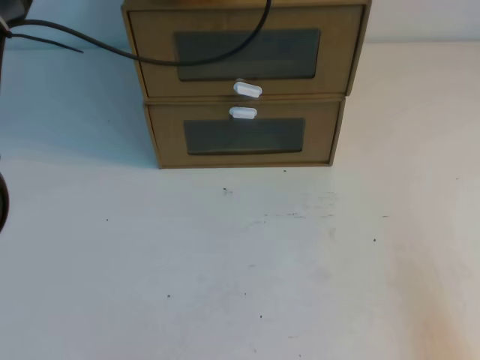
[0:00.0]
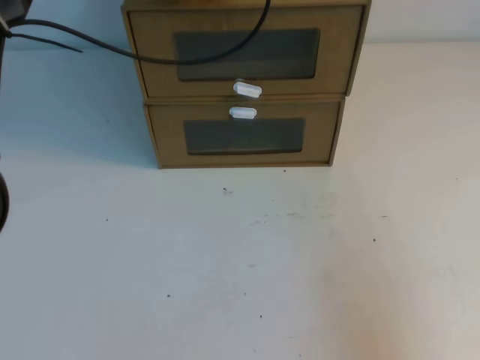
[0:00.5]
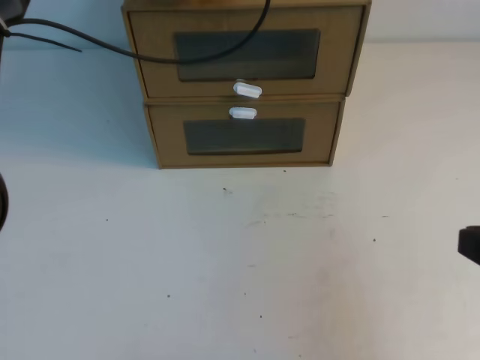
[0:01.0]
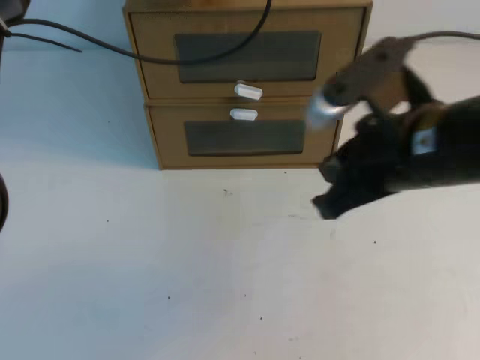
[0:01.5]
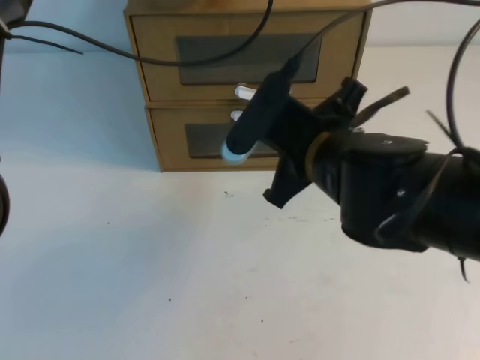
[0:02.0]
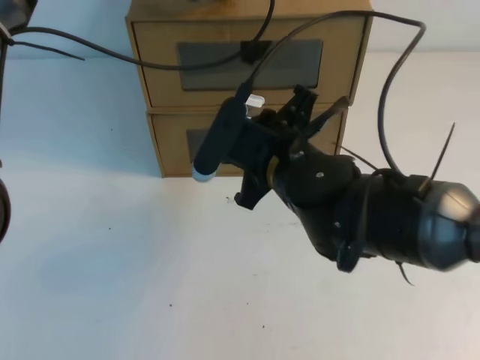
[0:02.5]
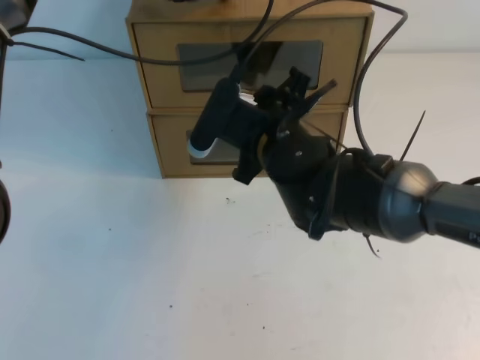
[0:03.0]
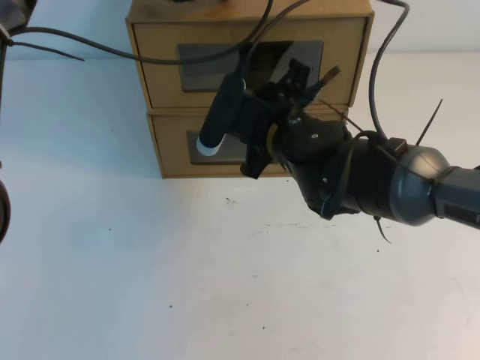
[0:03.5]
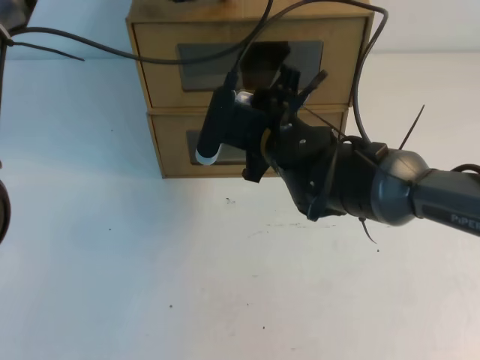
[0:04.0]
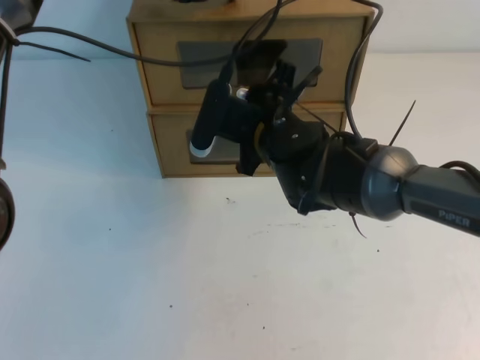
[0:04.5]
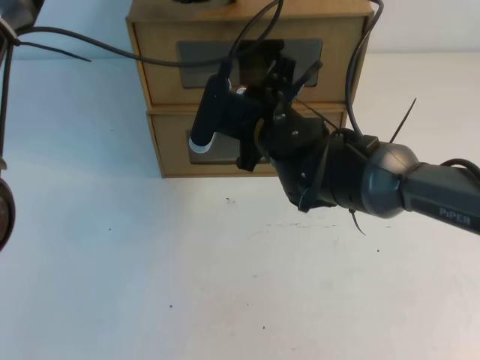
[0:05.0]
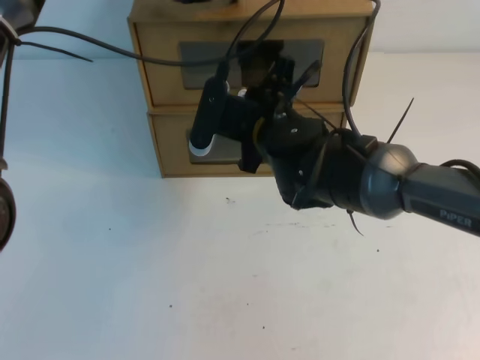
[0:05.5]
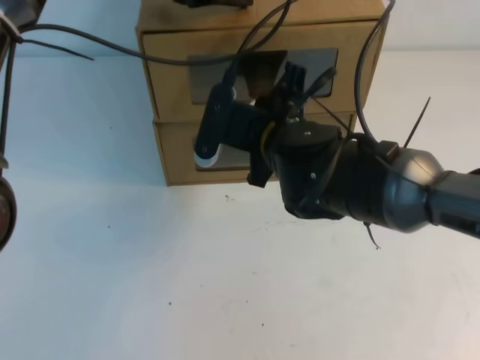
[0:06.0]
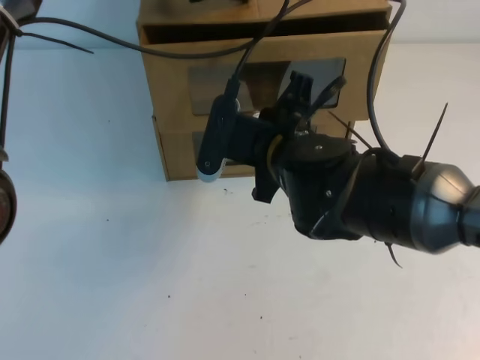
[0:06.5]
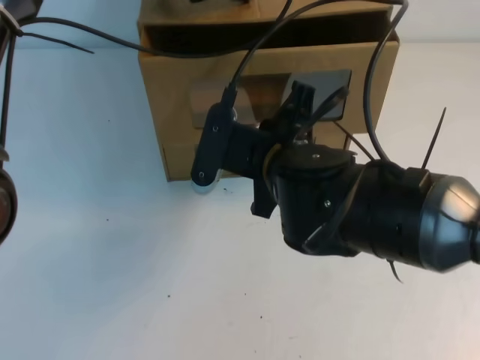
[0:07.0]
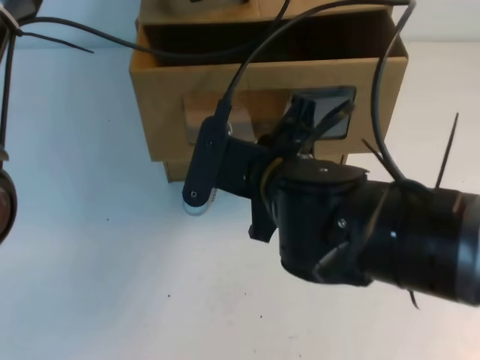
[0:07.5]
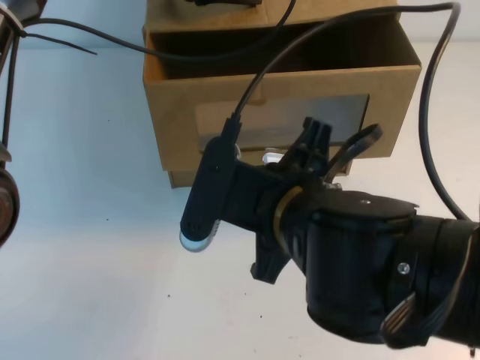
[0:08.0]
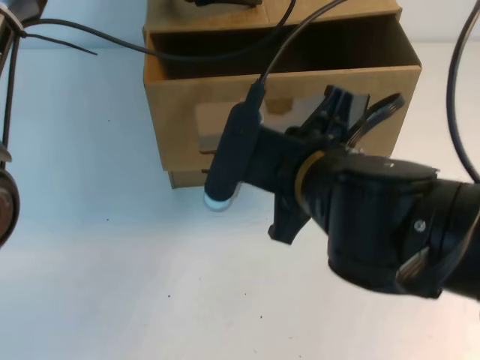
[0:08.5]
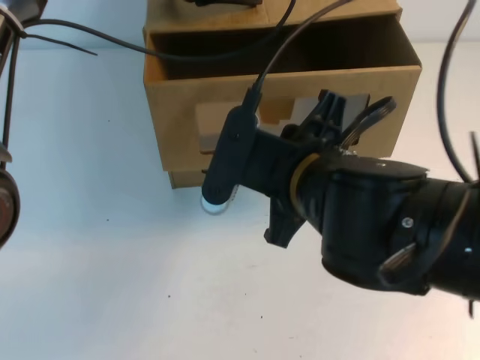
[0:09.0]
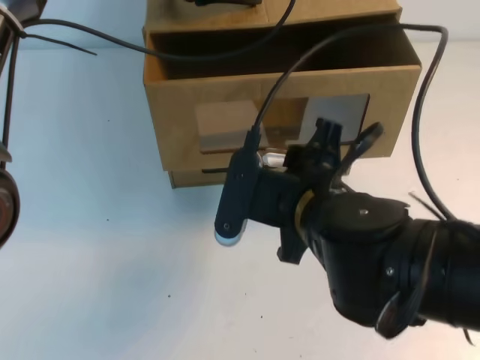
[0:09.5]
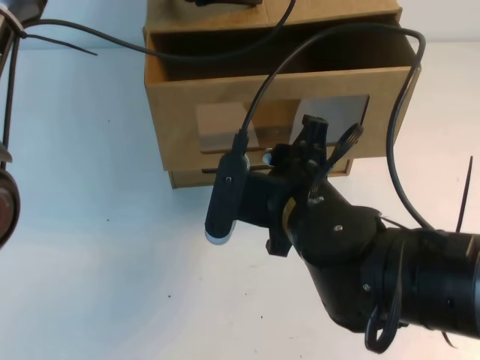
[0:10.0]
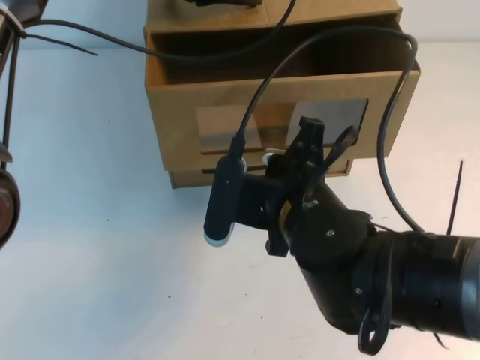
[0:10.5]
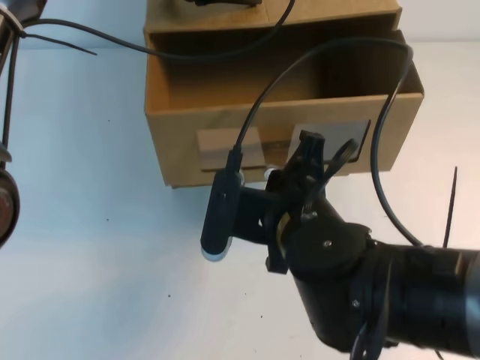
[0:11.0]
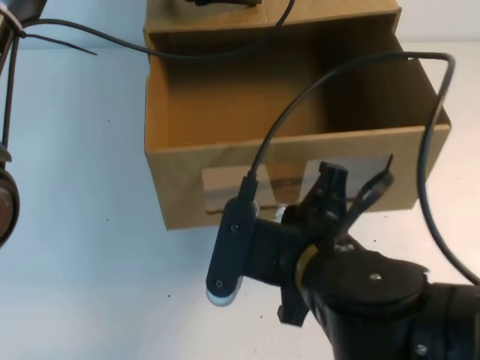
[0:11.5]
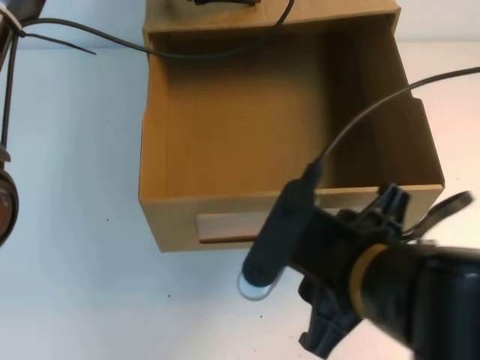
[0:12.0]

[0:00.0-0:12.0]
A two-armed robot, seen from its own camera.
Task of the whole recording: open the shoebox on the table.
0:00.0 to 0:02.0: The right gripper heads to the left and forward, covering some 35 cm.
0:02.0 to 0:04.0: The right gripper heads forward, covering some 10 cm, and opens its fingers.
0:04.0 to 0:06.0: The right gripper closes.
0:06.0 to 0:08.0: The right gripper is displaced backward by roughly 15 cm.
0:08.0 to 0:10.0: The right gripper ends up approximately 5 cm from where it was, and opens up.
0:10.0 to 0:12.0: The right gripper heads backward, covering roughly 10 cm, and closes, then reopens.

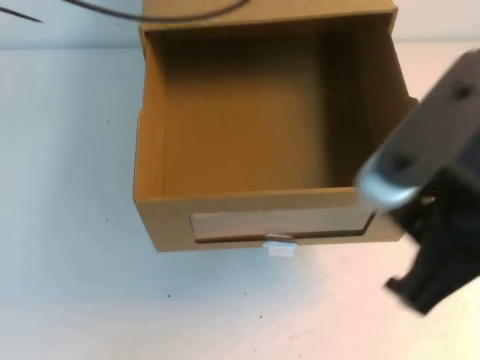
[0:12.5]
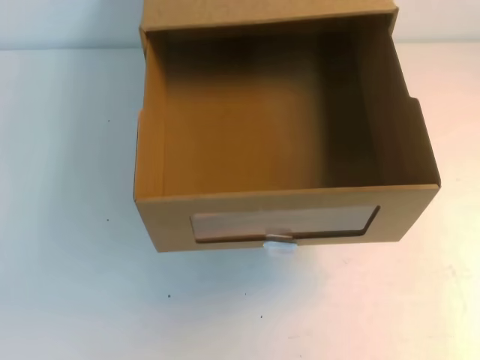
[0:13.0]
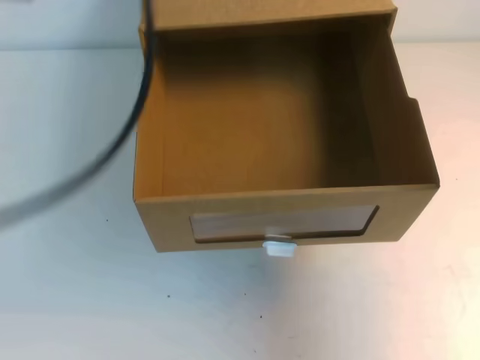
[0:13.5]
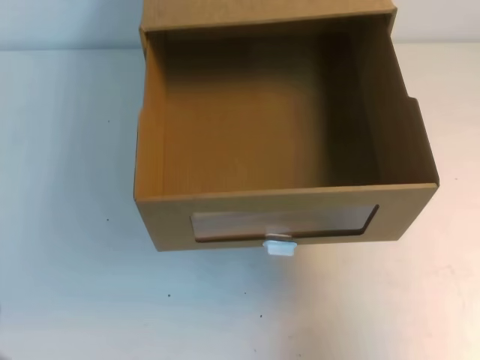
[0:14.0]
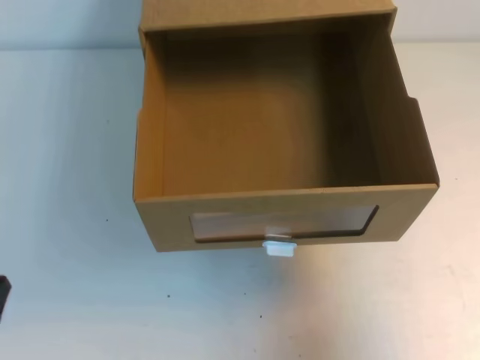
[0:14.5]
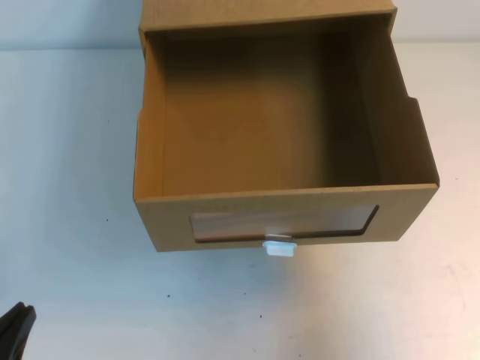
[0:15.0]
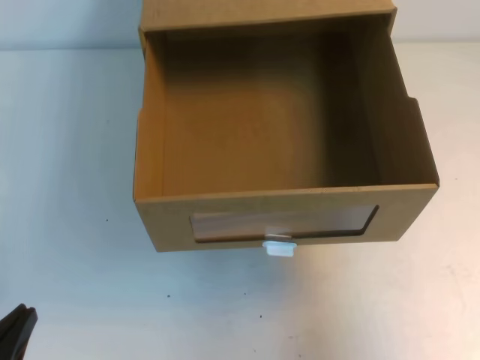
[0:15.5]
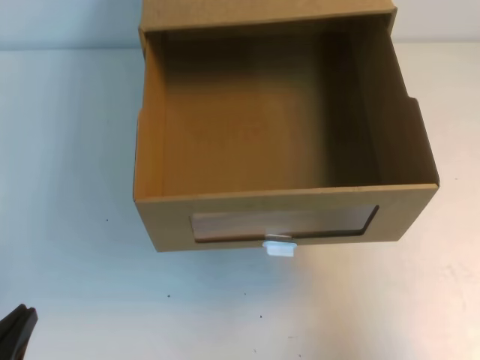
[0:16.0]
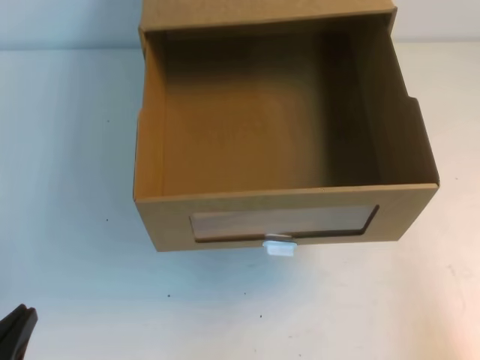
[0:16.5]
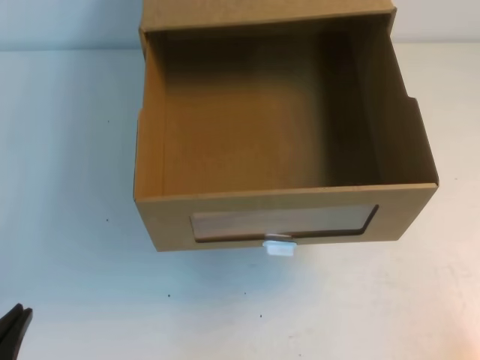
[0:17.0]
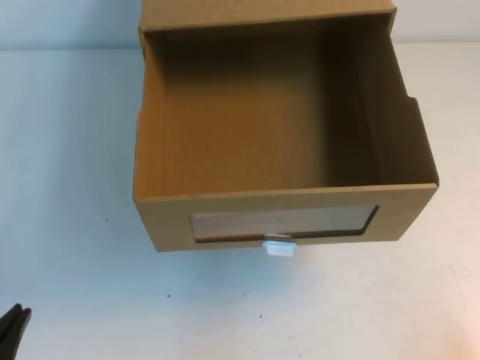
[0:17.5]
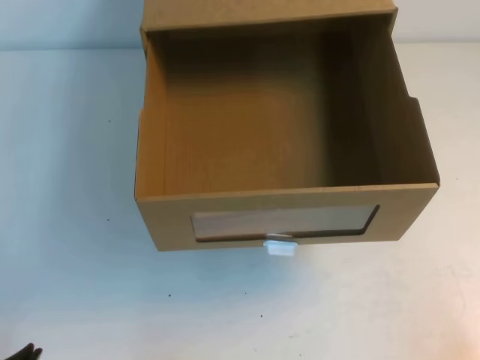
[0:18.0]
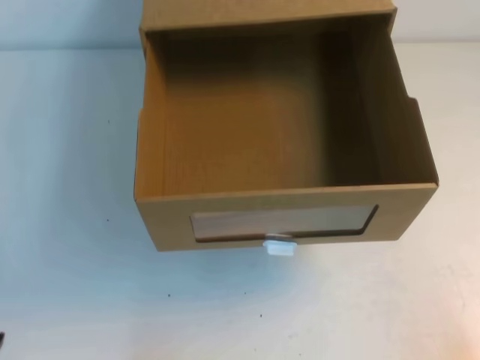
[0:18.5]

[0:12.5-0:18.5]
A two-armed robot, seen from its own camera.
Task of the whole recording: open the shoebox on the table.
Step, 0:12.5 to 0:18.5: Open the shoe box.
0:12.5 to 0:14.5: The right gripper shifts some 15 cm to the right, and closes. The left gripper shifts approximately 40 cm backward, downward and to the left.
0:14.5 to 0:16.5: The right gripper goes about 20 cm downward and backward.
